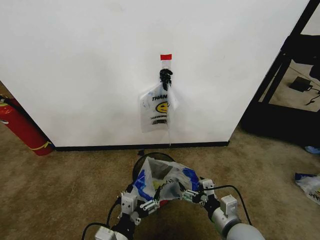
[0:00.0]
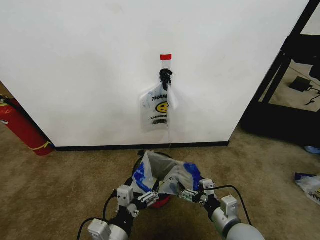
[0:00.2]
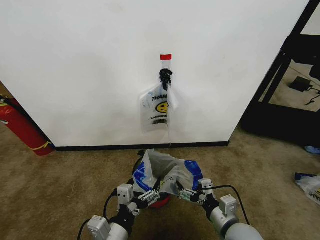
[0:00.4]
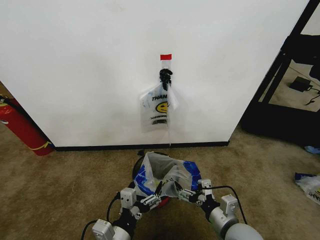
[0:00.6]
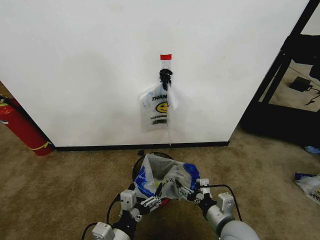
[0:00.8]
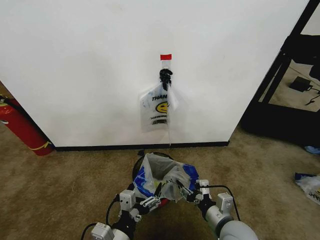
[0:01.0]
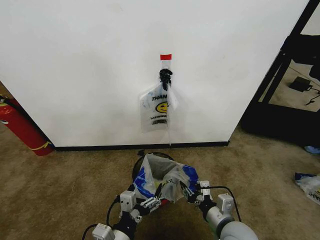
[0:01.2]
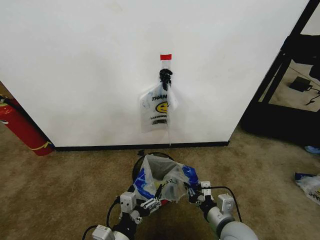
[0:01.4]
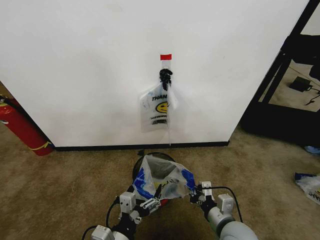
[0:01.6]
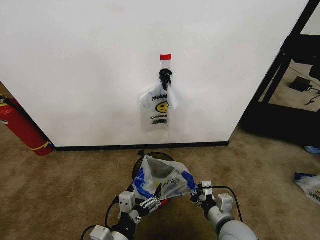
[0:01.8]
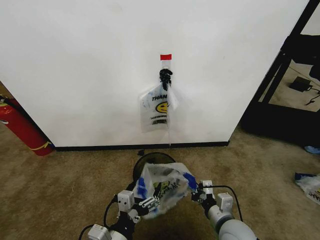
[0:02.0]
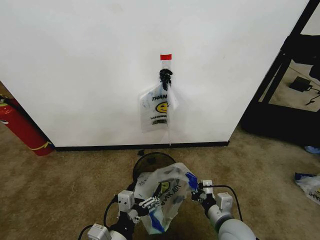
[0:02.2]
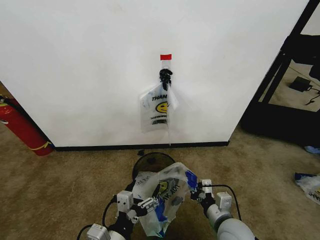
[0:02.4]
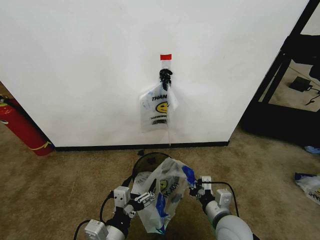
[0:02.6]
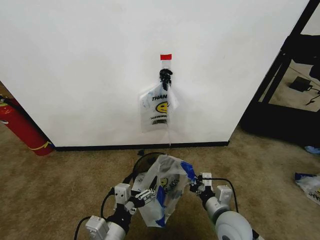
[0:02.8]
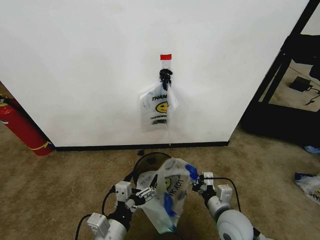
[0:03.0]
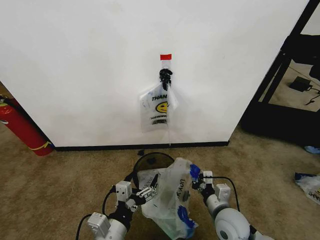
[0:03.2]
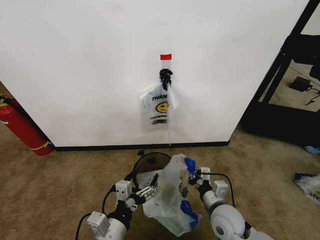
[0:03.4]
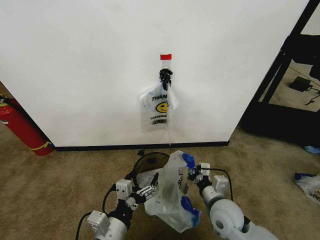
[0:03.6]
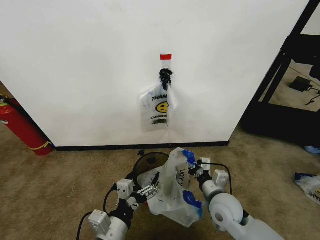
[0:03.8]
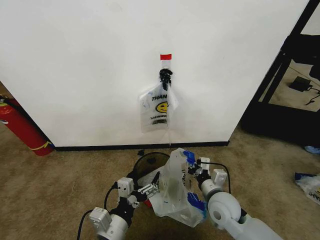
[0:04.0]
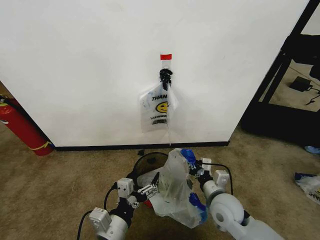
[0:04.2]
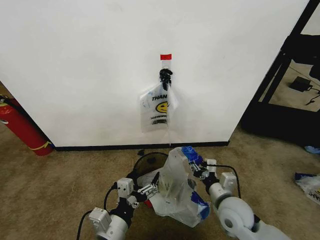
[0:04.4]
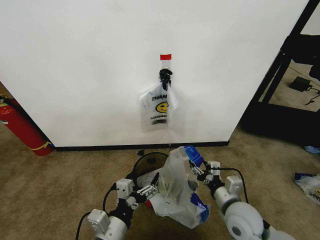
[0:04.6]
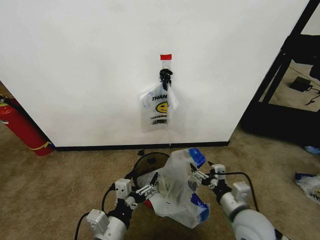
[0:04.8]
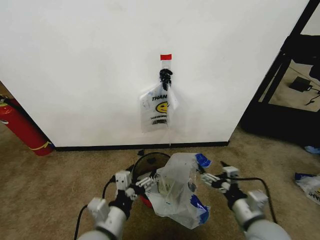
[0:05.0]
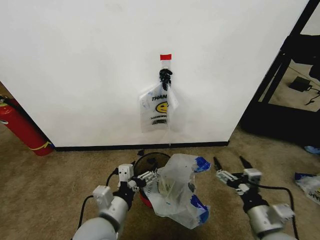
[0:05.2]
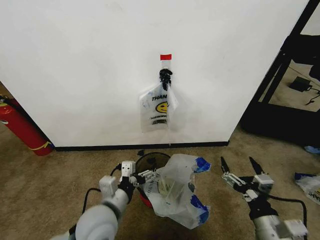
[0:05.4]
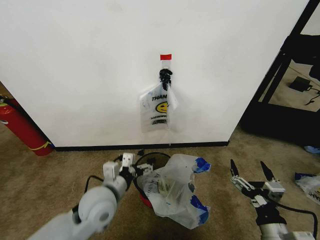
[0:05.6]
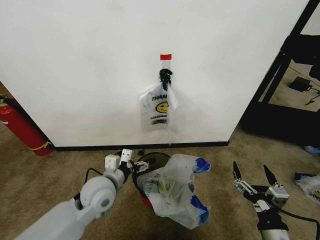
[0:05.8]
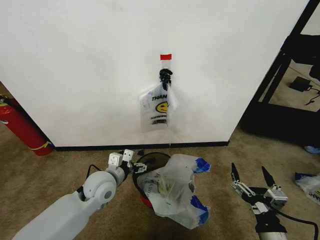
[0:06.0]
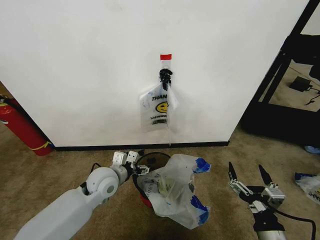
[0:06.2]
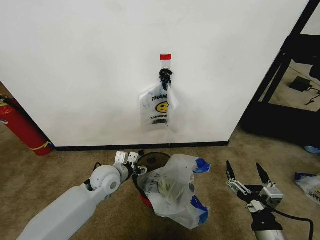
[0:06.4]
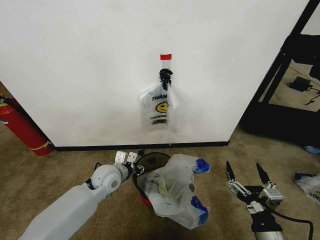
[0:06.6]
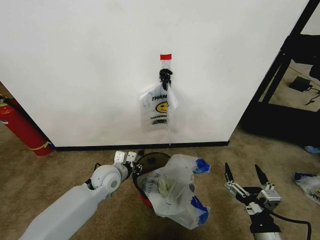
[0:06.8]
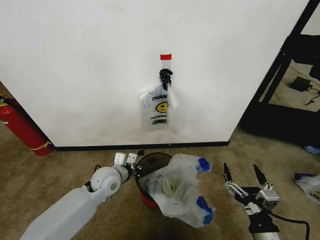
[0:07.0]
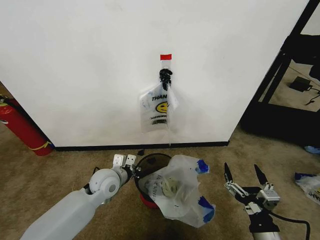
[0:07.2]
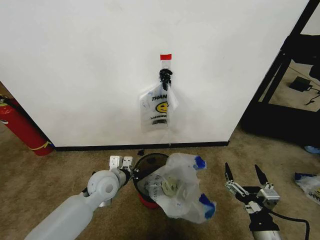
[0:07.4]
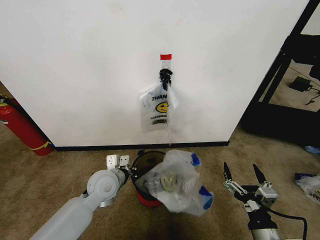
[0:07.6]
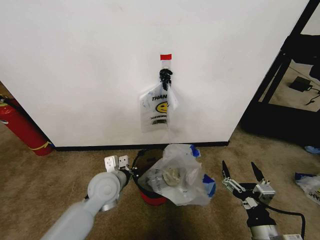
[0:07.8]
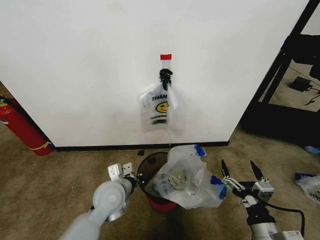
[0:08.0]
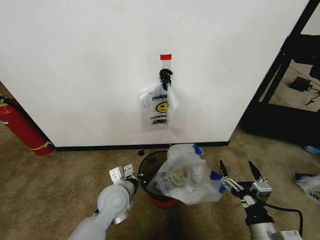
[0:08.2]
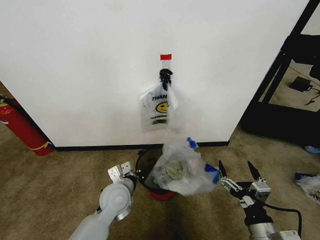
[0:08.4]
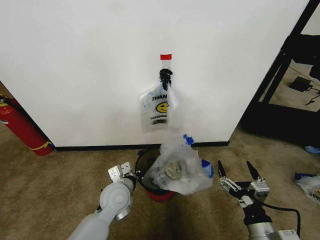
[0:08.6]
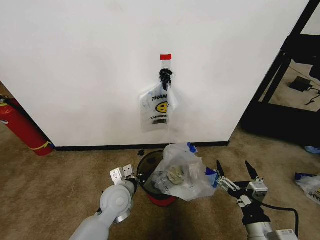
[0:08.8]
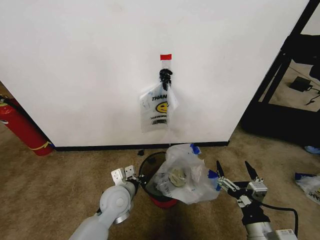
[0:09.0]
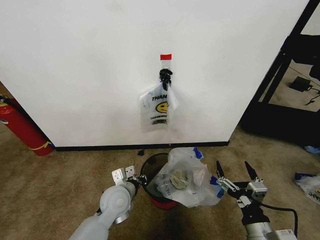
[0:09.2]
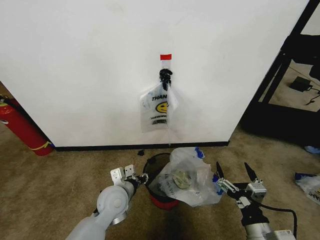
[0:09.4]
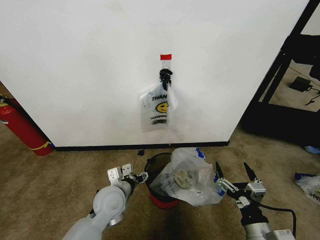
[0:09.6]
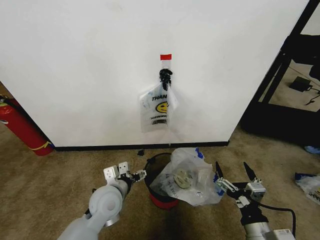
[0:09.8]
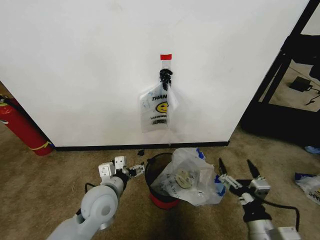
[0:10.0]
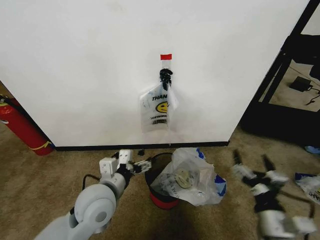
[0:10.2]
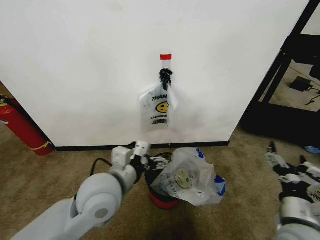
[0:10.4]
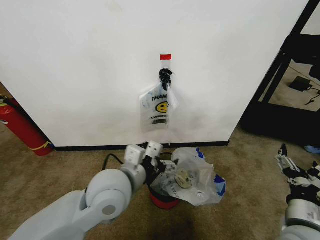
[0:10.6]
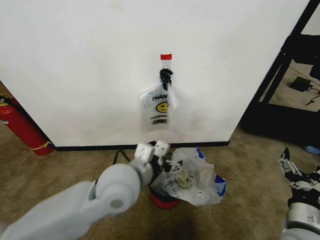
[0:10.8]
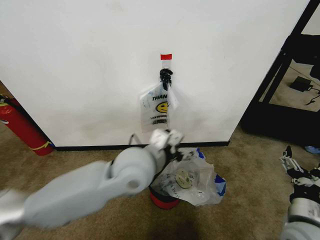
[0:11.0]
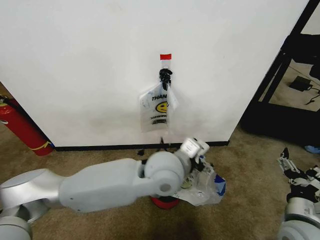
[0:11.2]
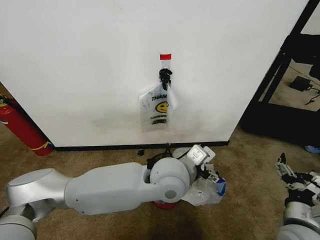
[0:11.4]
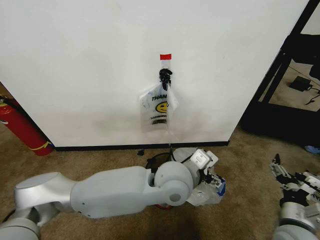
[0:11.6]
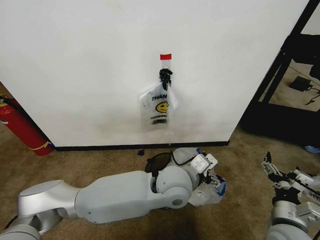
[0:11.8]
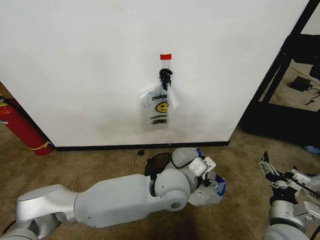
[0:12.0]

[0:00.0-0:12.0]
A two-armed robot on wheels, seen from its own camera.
Task of the whole recording: Pick up the garbage bag from the wall and place it over the trash bin.
0:00.0 to 0:01.6: The right gripper closes its fingers.
0:01.6 to 0:03.0: The grippers make only small movements.
0:03.0 to 0:04.4: The right gripper opens up.
0:04.4 to 0:06.0: The left gripper travels forward by about 20 cm, while the right gripper moves backward, approximately 15 cm, and opens.
0:06.0 to 0:07.6: The left gripper closes up.
0:07.6 to 0:09.0: The left gripper changes place by roughly 5 cm.
0:09.0 to 0:10.4: The right gripper moves upward, roughly 5 cm; the left gripper goes some 15 cm upward, and opens.
0:10.4 to 0:12.0: The left gripper is displaced to the right by roughly 15 cm.

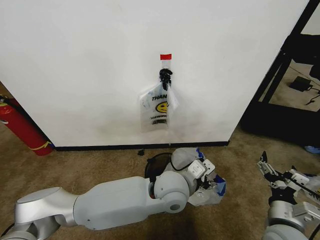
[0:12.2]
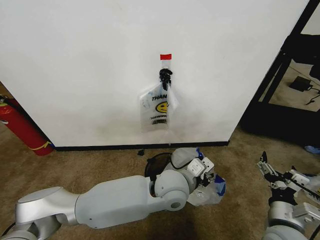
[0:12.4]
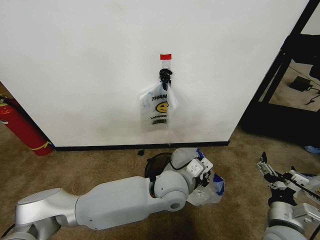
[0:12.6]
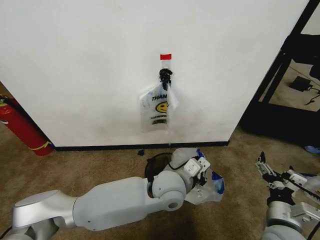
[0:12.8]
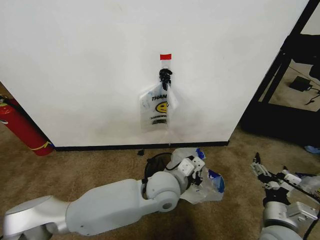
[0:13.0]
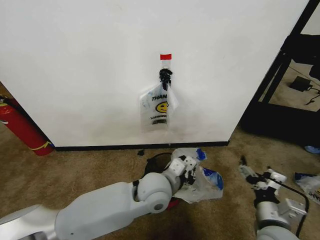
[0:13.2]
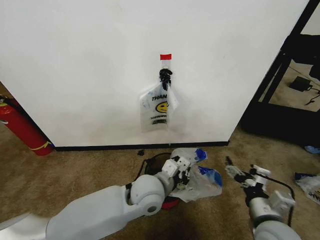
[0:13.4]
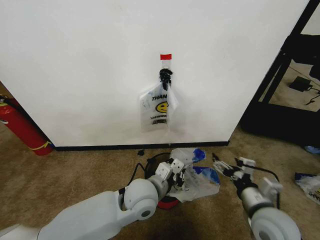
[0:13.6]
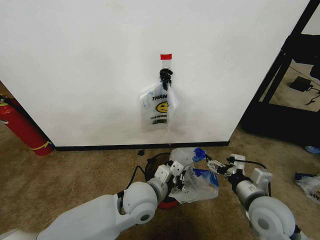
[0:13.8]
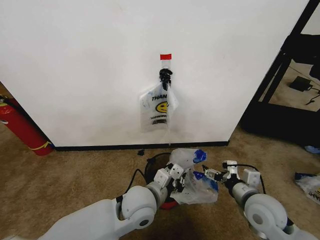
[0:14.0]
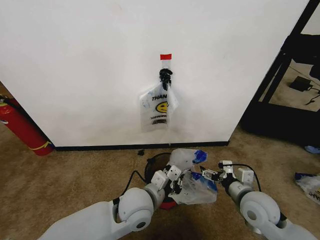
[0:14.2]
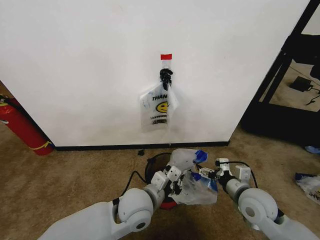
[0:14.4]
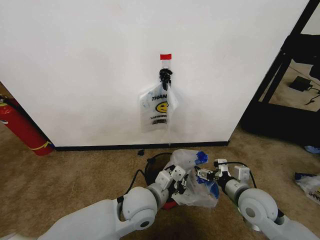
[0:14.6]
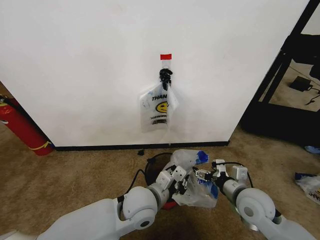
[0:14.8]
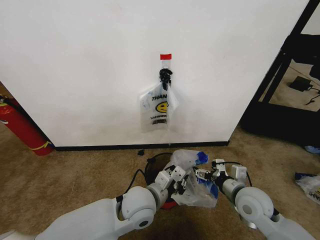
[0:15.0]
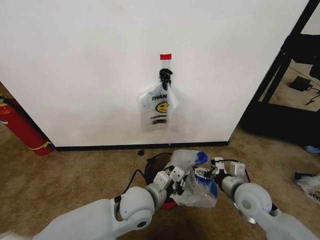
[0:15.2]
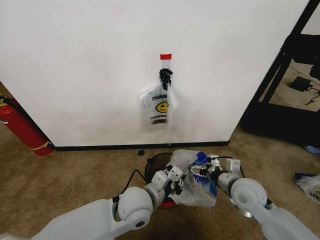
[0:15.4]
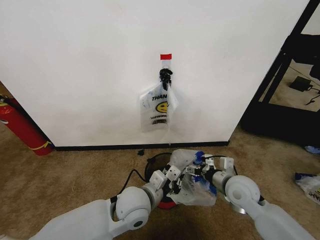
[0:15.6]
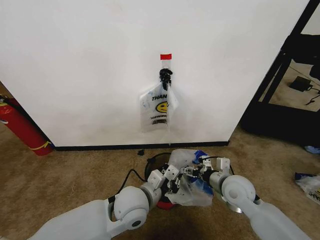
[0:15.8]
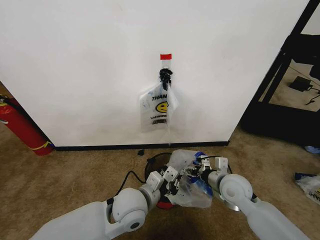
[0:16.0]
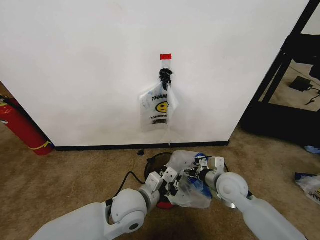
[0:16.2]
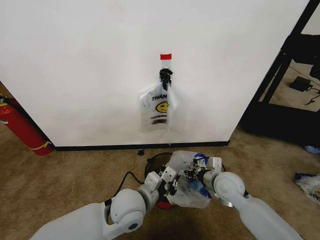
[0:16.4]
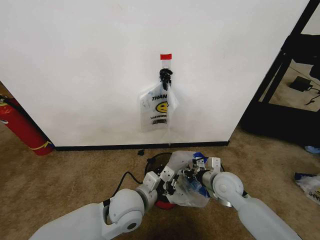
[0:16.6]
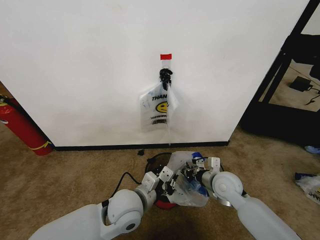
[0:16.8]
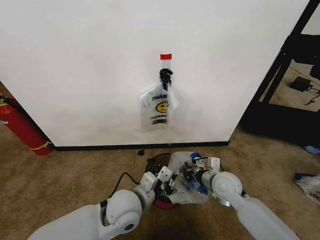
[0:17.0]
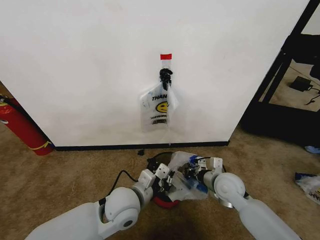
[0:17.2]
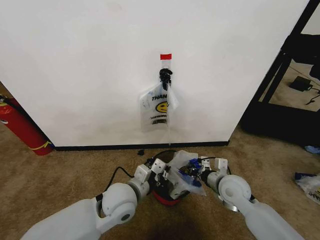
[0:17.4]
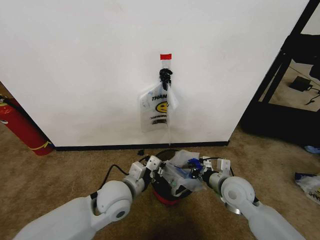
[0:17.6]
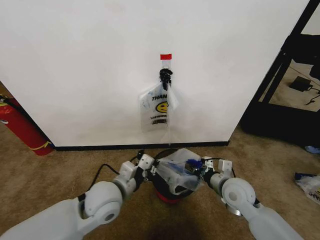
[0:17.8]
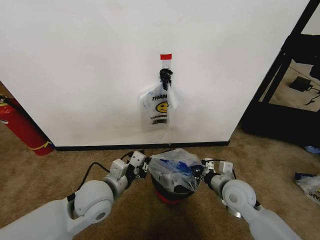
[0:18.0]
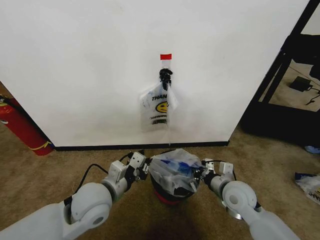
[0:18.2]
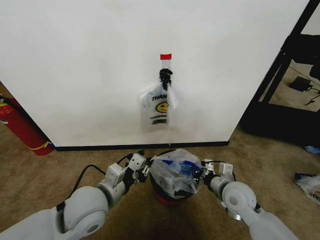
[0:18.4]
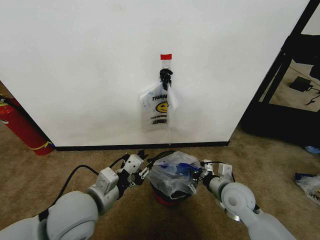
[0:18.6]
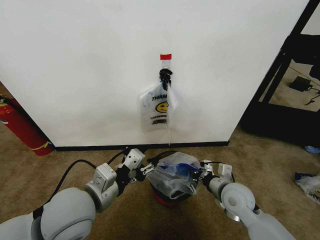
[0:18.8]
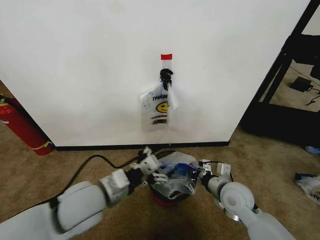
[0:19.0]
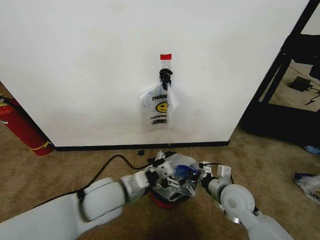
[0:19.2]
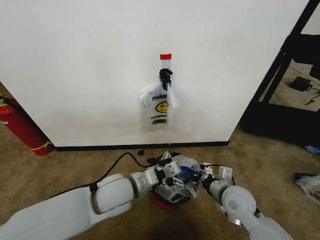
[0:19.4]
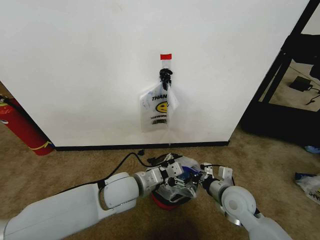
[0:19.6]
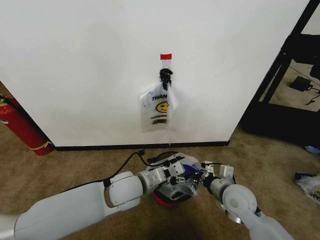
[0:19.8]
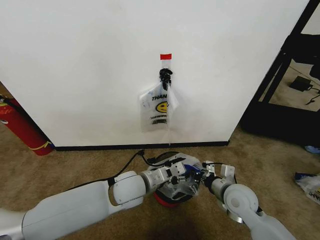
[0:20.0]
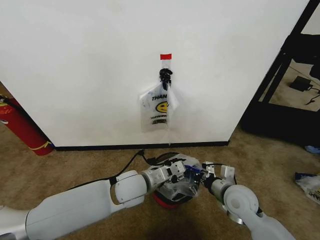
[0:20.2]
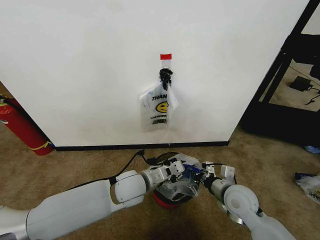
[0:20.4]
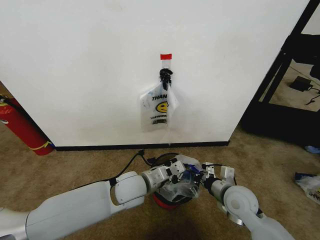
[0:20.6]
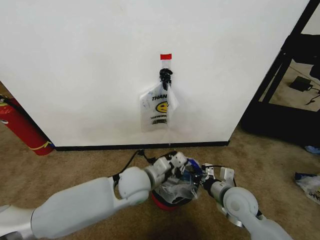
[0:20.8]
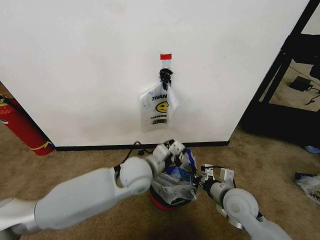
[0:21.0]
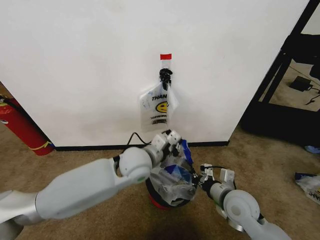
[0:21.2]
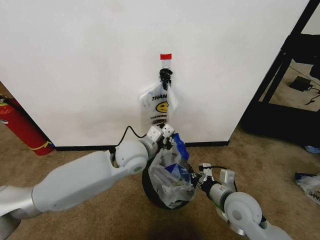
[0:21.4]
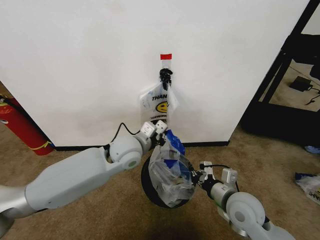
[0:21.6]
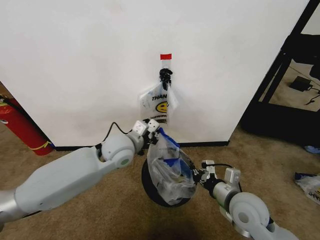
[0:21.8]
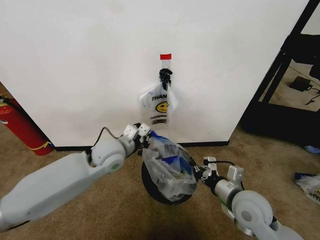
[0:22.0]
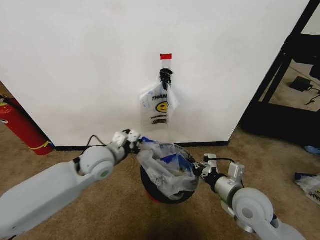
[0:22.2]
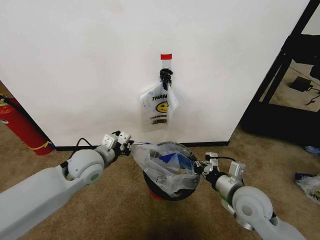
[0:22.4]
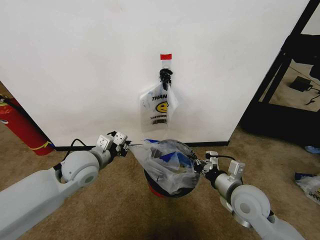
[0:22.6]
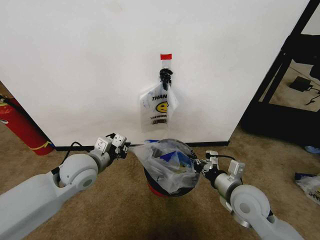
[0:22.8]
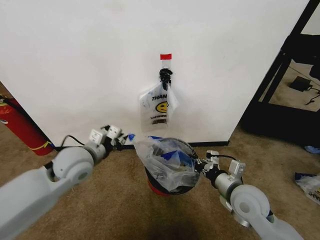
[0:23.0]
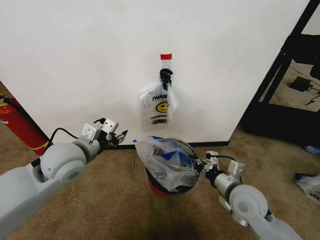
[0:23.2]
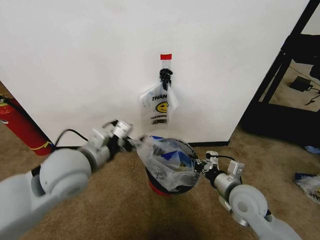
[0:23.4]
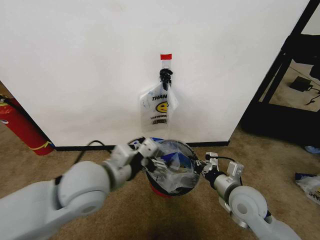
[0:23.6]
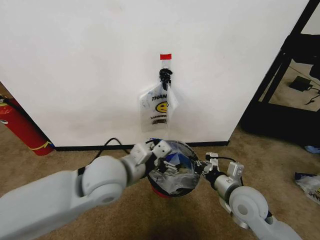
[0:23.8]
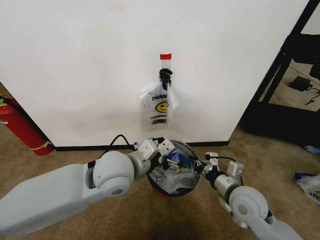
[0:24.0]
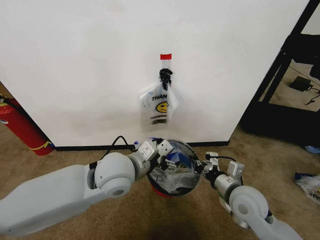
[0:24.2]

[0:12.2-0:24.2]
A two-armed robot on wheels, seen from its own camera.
Task of the whole recording: Pick up the garbage bag from the wall and place it over the trash bin.
0:12.2 to 0:13.8: The left gripper moves to the left, roughly 10 cm, and closes up. Meanwhile the right gripper travels forward by some 5 cm.
0:13.8 to 0:15.2: The right gripper shifts by approximately 5 cm.
0:15.2 to 0:16.6: The right gripper goes some 5 cm forward, and closes up.
0:16.6 to 0:18.2: The right gripper closes its fingers, while the left gripper goes some 10 cm to the left.
0:18.2 to 0:19.8: The left gripper travels to the right by roughly 5 cm, moves about 5 cm upward and comes back, and opens up.
0:19.8 to 0:21.2: The left gripper moves forward and upward, roughly 10 cm, and closes its fingers.
0:21.2 to 0:22.6: The left gripper travels to the left by some 15 cm.
0:22.6 to 0:24.2: The left gripper is displaced to the right by approximately 10 cm, and opens its fingers.
